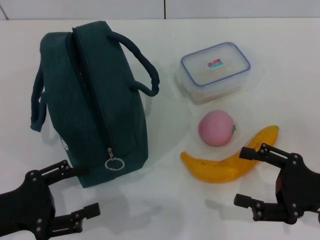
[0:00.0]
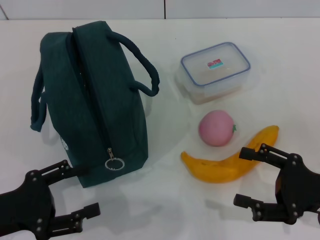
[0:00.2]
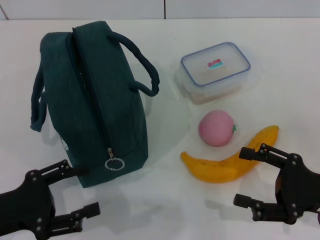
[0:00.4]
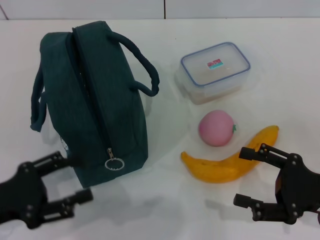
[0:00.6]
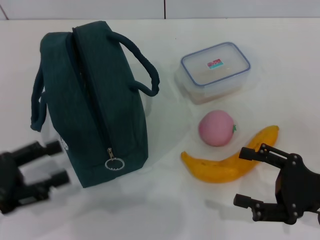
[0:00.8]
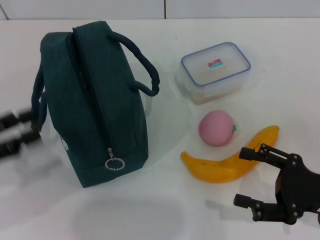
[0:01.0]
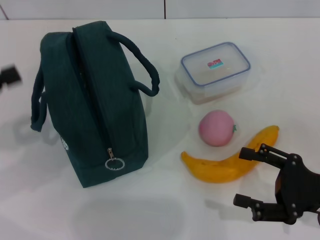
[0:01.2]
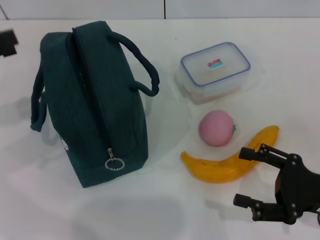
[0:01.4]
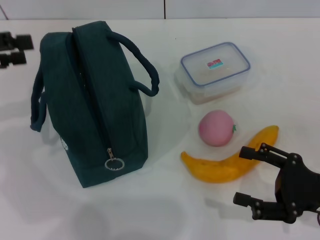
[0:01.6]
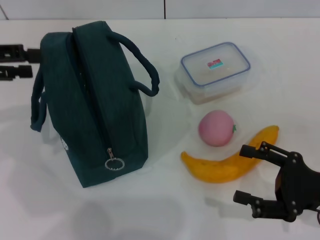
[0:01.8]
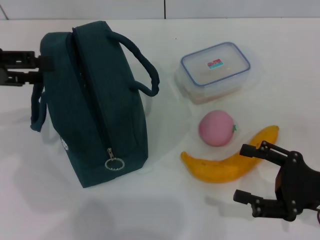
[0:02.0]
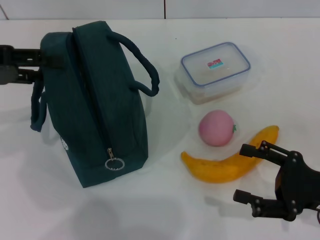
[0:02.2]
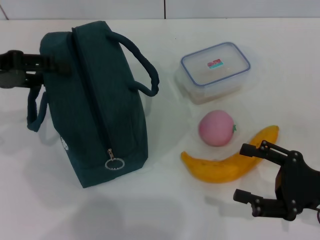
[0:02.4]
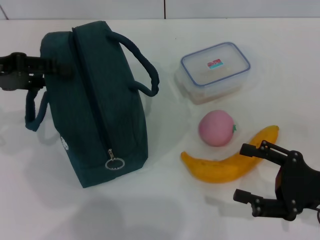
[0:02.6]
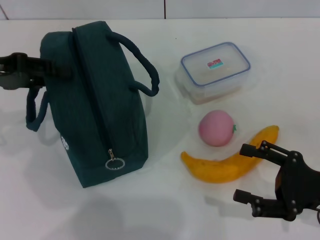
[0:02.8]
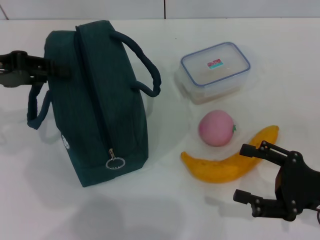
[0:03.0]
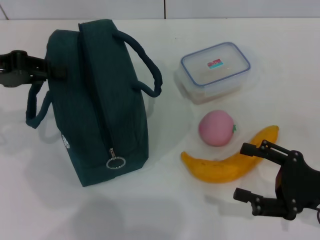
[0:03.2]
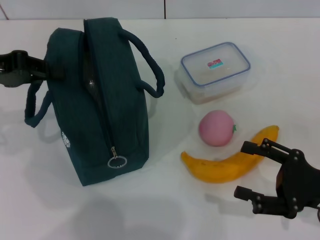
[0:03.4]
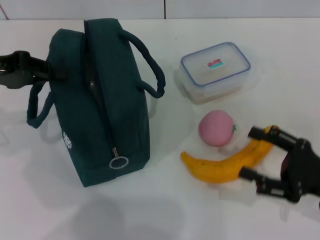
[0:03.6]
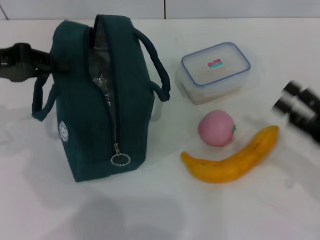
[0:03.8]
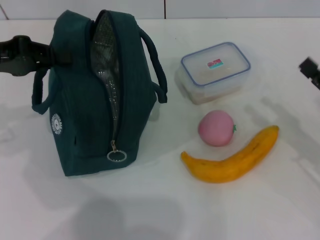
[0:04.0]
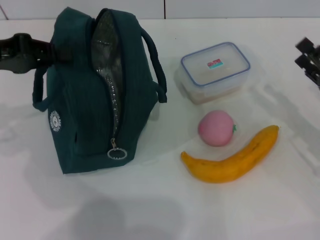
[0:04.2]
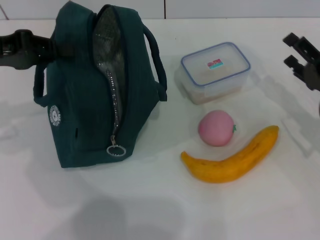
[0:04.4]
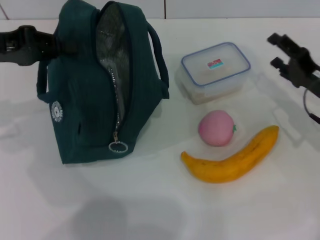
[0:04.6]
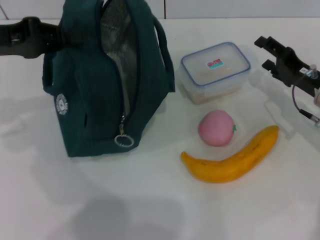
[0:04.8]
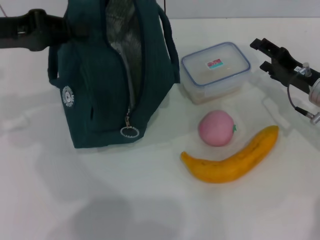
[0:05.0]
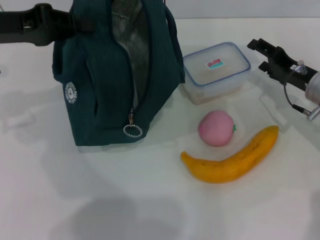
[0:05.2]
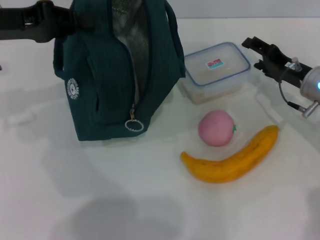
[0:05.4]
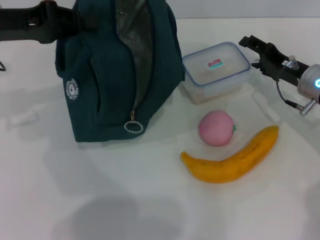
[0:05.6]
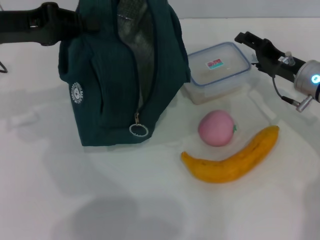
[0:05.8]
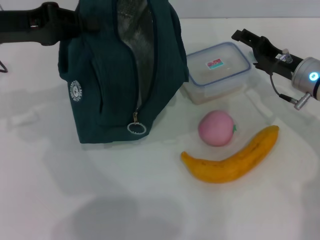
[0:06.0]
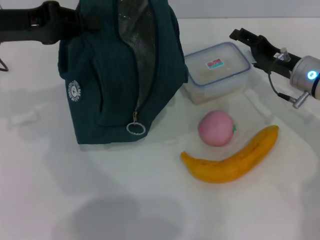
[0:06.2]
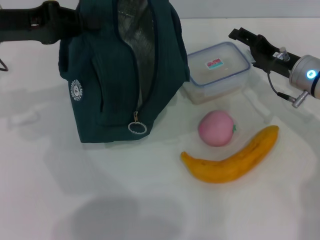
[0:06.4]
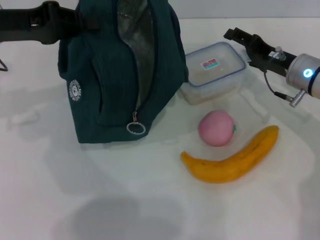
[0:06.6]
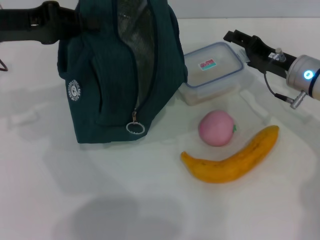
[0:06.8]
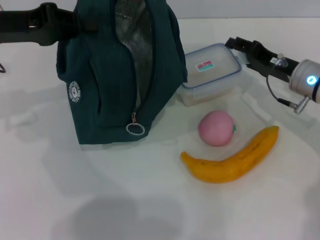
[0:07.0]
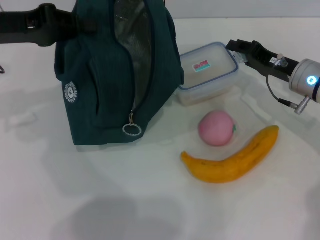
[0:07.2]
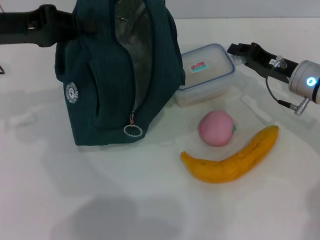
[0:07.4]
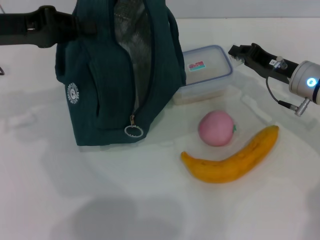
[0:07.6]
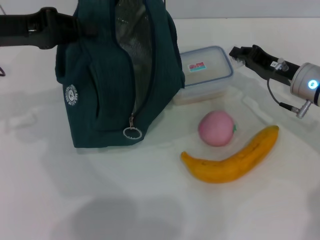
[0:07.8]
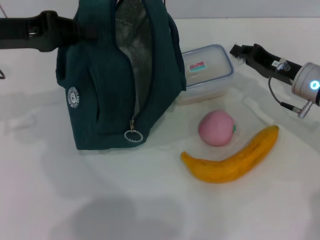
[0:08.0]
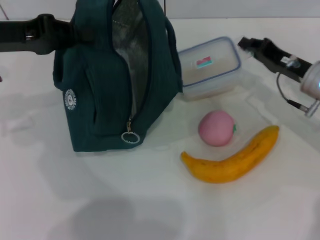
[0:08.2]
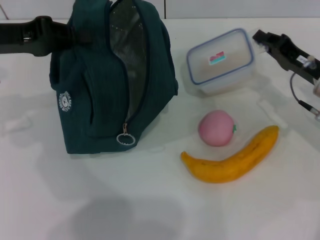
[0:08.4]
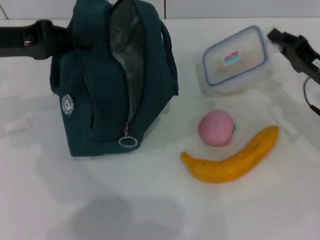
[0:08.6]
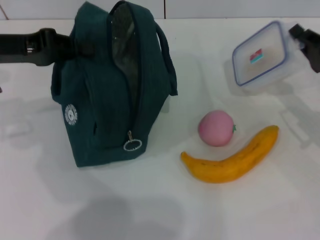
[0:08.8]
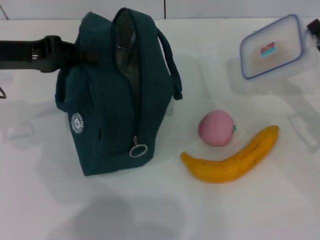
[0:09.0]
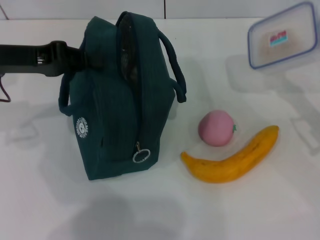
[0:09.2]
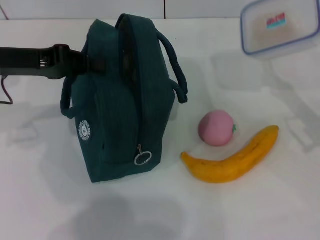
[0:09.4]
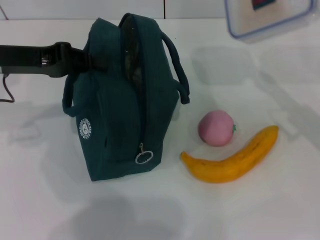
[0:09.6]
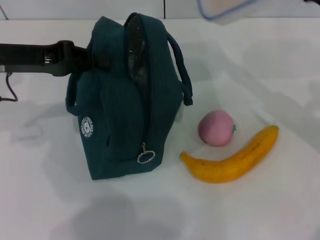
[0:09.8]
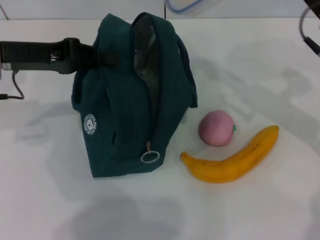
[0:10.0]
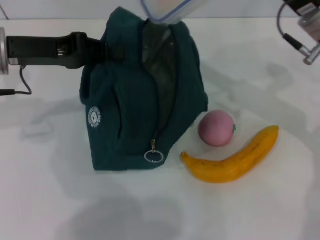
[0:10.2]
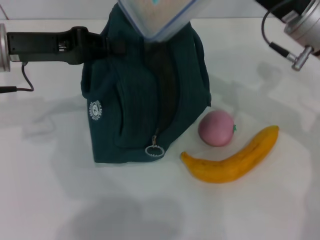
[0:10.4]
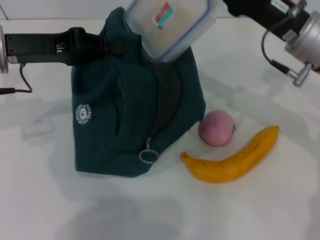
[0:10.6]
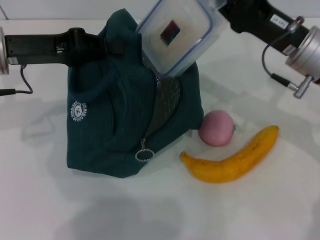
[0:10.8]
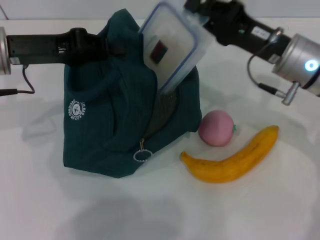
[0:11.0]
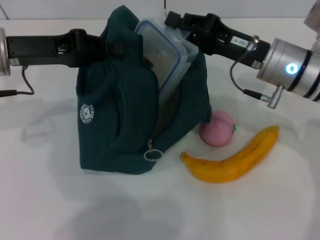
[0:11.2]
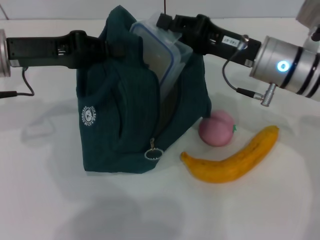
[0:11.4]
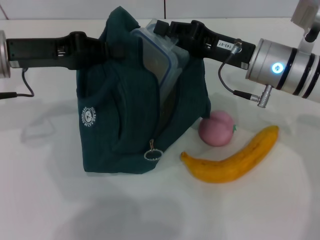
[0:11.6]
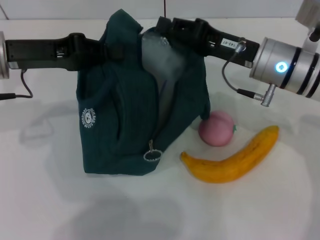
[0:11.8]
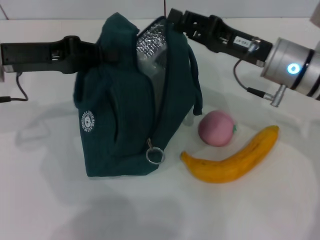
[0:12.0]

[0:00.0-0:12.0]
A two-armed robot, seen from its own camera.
Step, 0:00.0 to 0:03.4: Hold the lunch bag with your left hand.
Step, 0:03.6 to 0:07.8: Pick up the lunch box with your right hand.
Step, 0:08.0 to 0:11.8: Place the lunch box into the lunch bag with your right hand.
0:00.0 to 0:01.6: The left gripper shifts roughly 20 cm forward, upward and to the left.
0:01.6 to 0:03.0: There are only small adjustments of the grippers.
0:03.0 to 0:04.4: The left gripper closes up; the right gripper shifts roughly 10 cm forward.
0:04.4 to 0:06.0: The right gripper heads forward and to the left, covering roughly 10 cm.
0:06.0 to 0:07.6: The right gripper closes.
0:07.6 to 0:09.0: The right gripper heads to the right and backward, covering about 10 cm.
0:09.0 to 0:10.4: The right gripper moves to the left, upward and forward, roughly 15 cm.

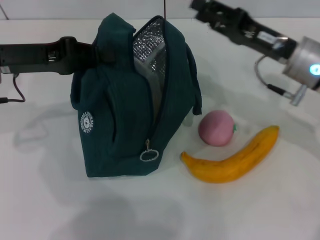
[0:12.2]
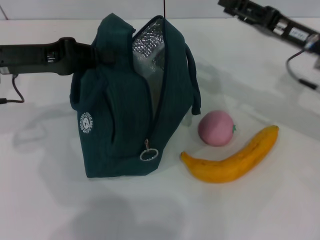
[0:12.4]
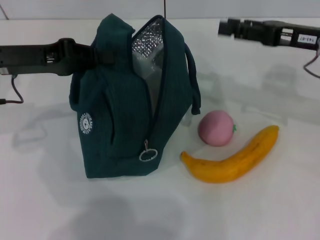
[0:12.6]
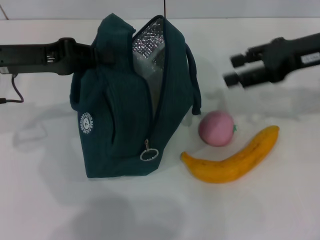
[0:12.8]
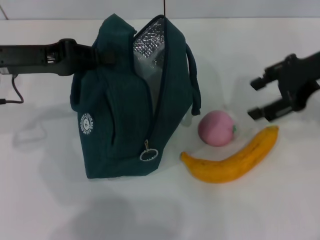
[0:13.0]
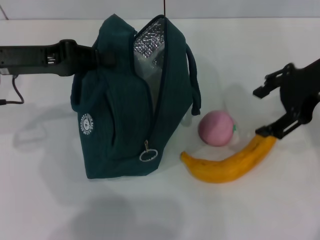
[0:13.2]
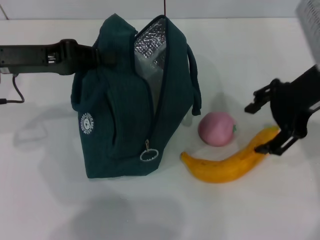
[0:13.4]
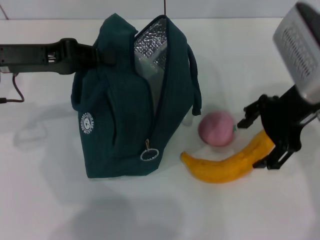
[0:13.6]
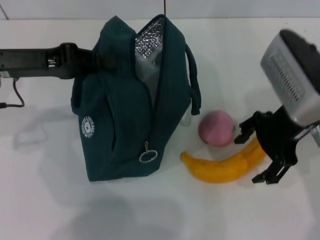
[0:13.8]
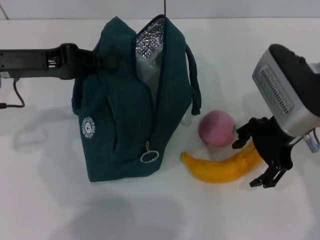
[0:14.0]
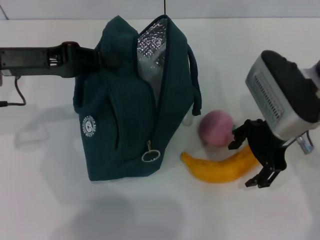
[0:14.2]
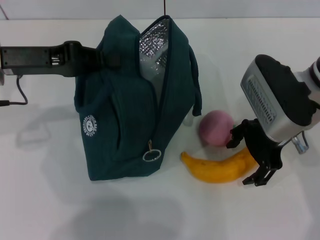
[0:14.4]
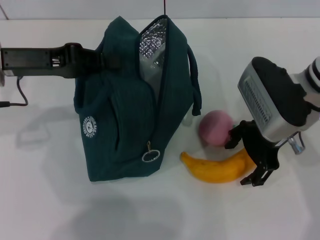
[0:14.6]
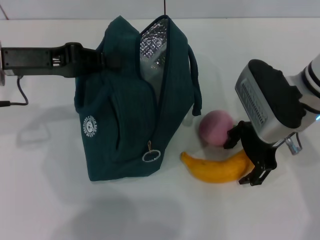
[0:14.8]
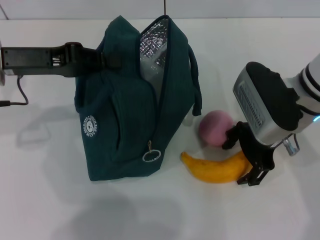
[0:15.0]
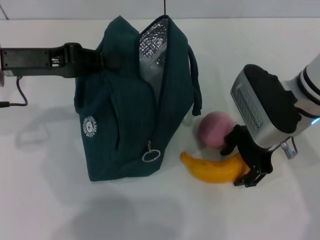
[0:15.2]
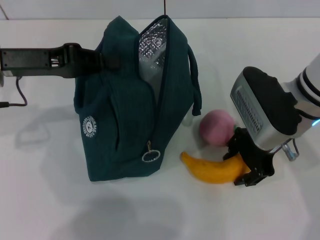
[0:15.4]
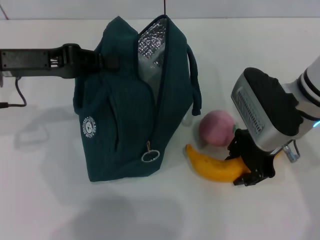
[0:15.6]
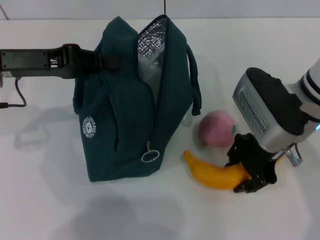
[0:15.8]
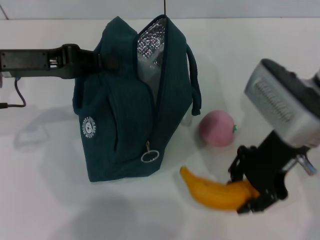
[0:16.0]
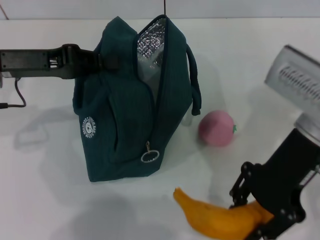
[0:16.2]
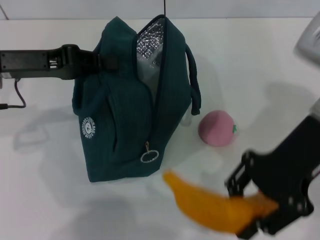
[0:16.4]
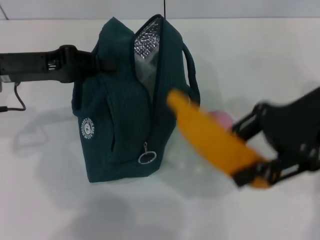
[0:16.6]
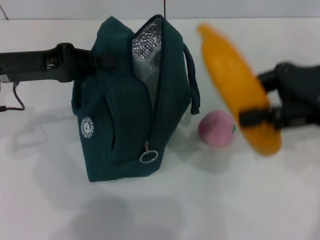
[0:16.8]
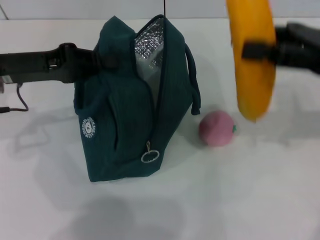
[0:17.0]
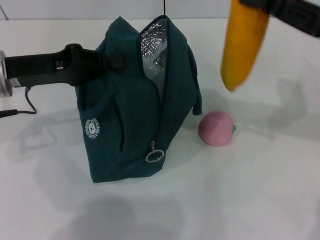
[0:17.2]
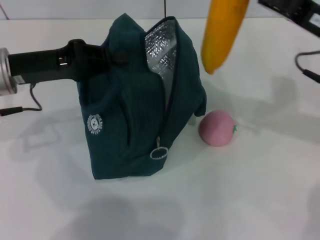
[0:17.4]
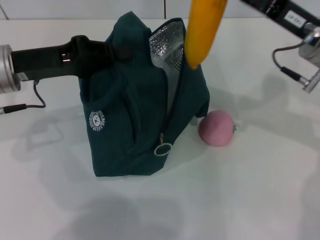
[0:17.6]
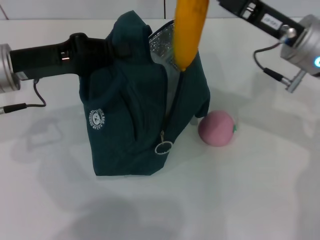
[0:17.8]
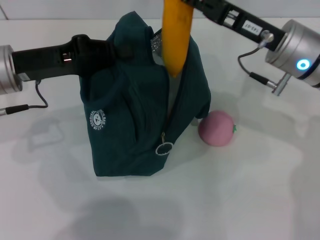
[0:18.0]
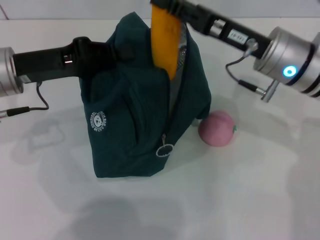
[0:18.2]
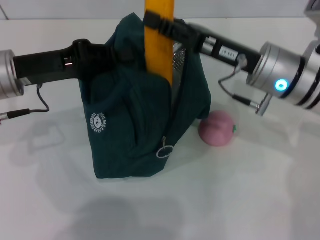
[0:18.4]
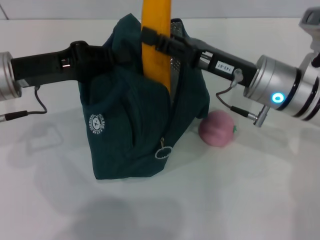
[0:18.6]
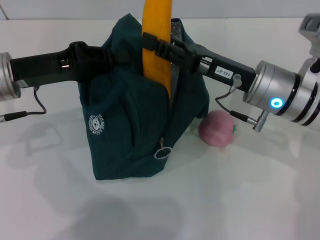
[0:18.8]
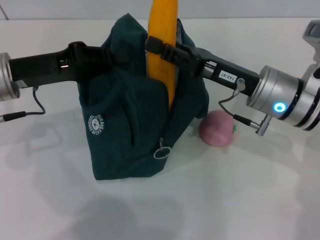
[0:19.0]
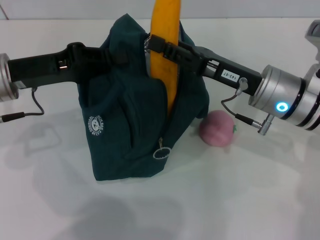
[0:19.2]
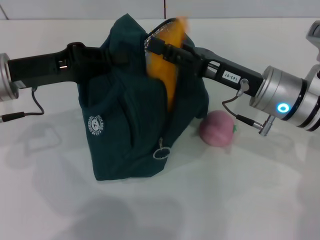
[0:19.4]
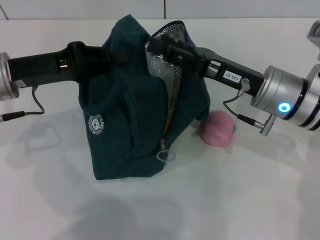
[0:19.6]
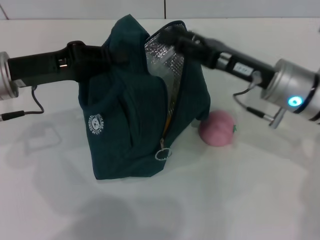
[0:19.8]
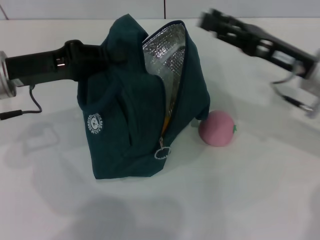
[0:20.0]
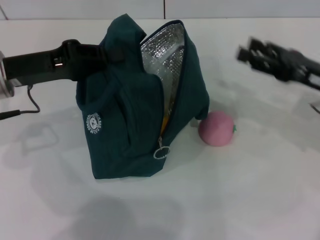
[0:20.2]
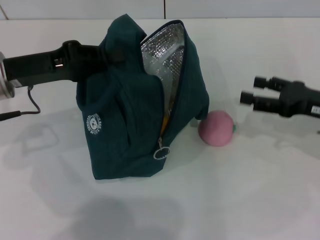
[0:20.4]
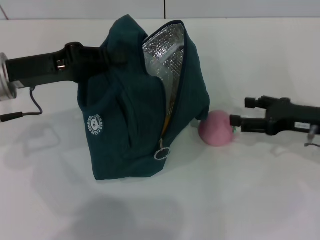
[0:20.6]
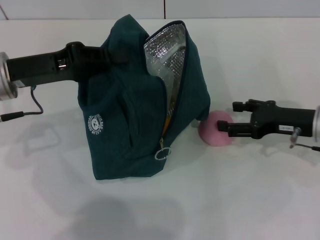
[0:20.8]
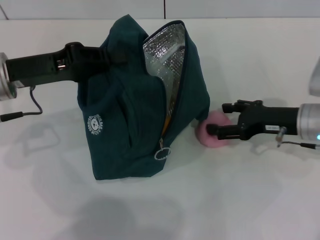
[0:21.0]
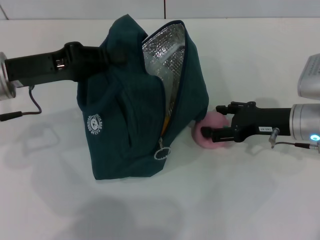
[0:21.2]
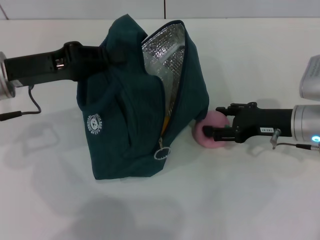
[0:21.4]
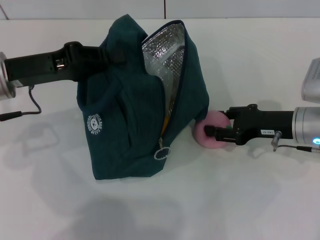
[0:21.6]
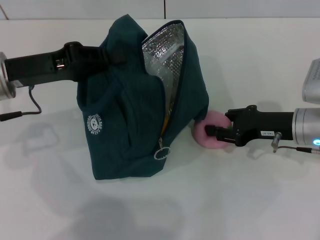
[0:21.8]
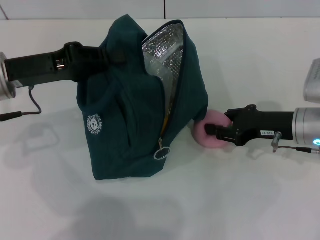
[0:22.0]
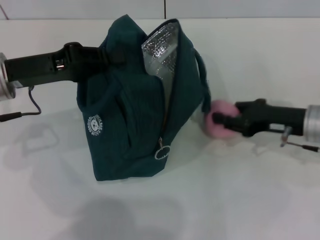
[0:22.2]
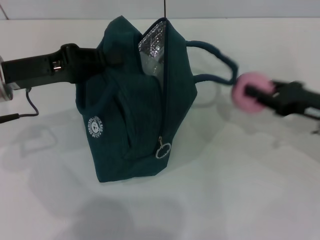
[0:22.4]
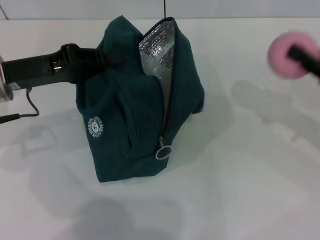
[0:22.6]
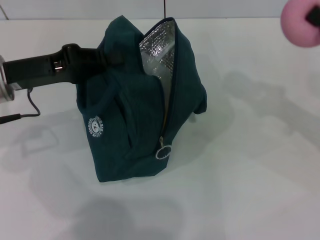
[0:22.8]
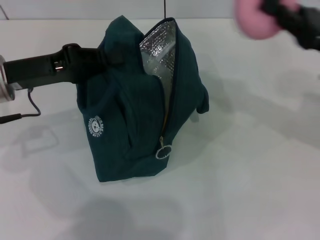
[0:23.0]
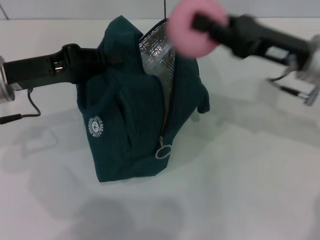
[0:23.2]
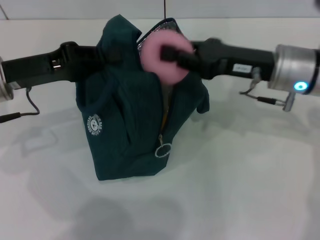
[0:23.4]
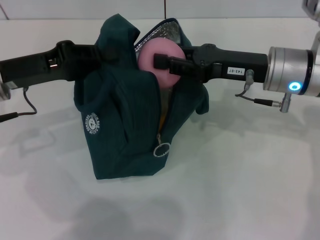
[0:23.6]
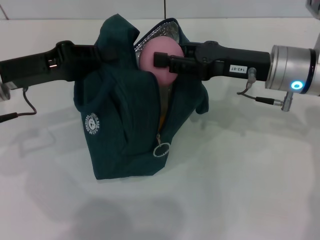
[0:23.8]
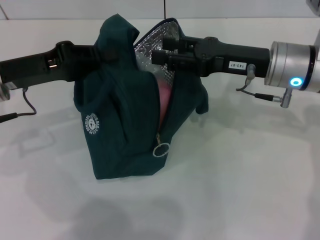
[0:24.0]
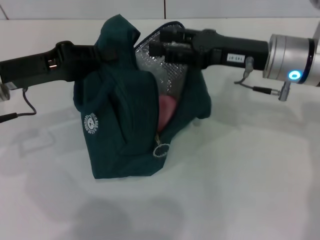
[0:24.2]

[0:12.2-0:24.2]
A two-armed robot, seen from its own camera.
Step, 0:12.2 to 0:15.6: Take the banana with your right hand.
Step, 0:15.8 to 0:19.4: Put the banana into the lunch bag with your right hand.
Step, 0:19.6 to 0:22.0: Grab the peach with your right hand.
0:12.2 to 0:13.8: The right gripper shifts approximately 5 cm upward, and opens its fingers.
0:13.8 to 0:15.2: The right gripper travels downward by about 5 cm.
0:15.2 to 0:16.6: The right gripper shifts roughly 10 cm upward and to the right, and closes its fingers.
0:16.6 to 0:18.2: The right gripper shifts about 10 cm downward and to the left.
0:18.2 to 0:19.8: The grippers make only small movements.
0:19.8 to 0:21.2: The right gripper travels to the right and downward by some 10 cm.
0:21.2 to 0:22.6: The right gripper is displaced to the right by roughly 10 cm, and closes.
0:22.6 to 0:24.2: The right gripper goes some 15 cm to the left and forward, and opens.
